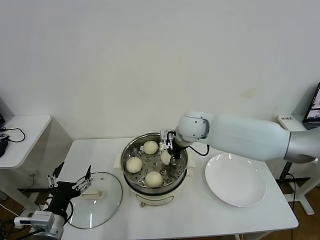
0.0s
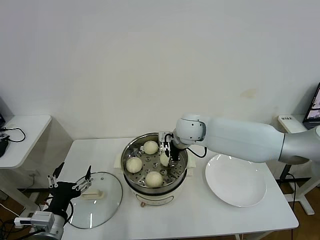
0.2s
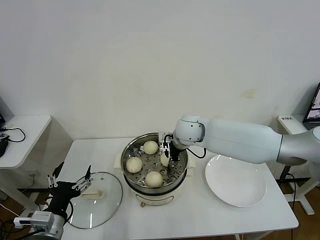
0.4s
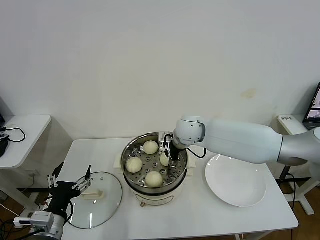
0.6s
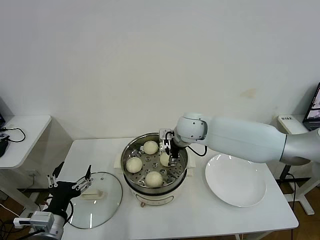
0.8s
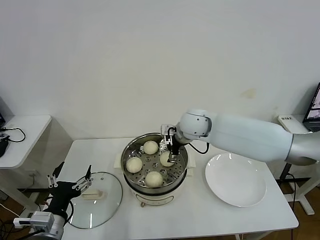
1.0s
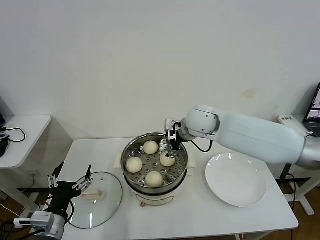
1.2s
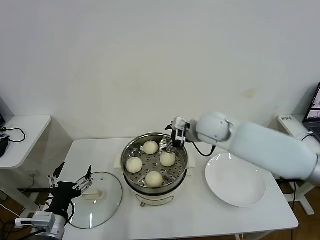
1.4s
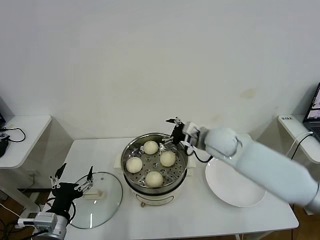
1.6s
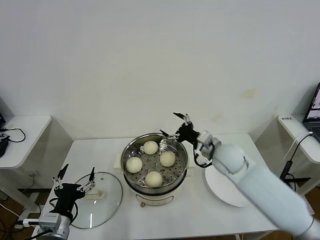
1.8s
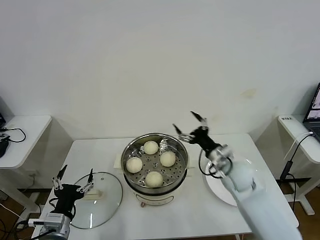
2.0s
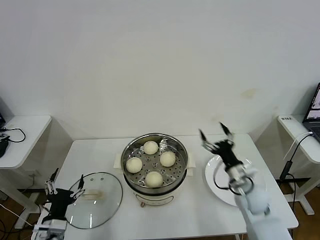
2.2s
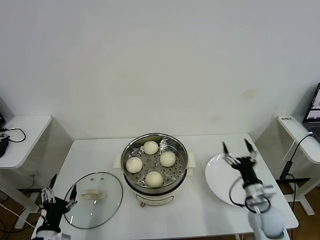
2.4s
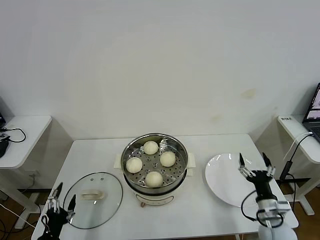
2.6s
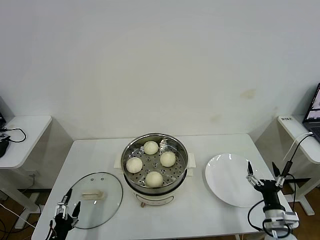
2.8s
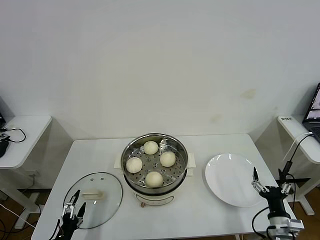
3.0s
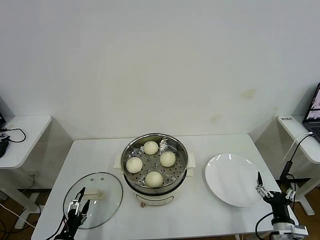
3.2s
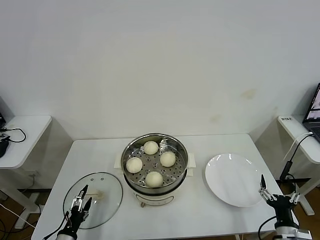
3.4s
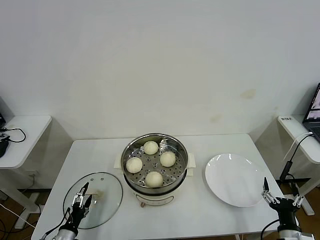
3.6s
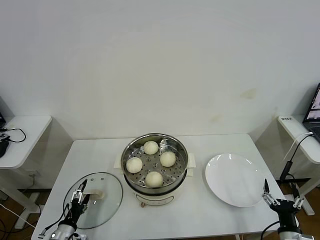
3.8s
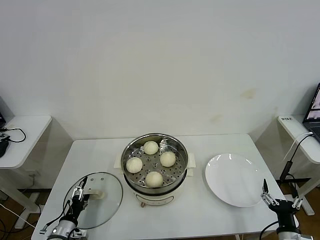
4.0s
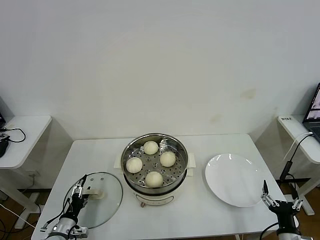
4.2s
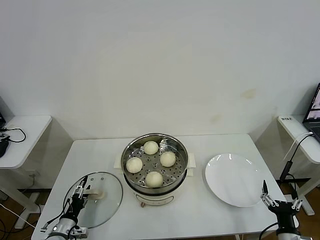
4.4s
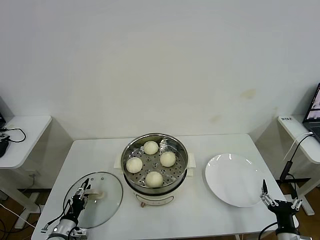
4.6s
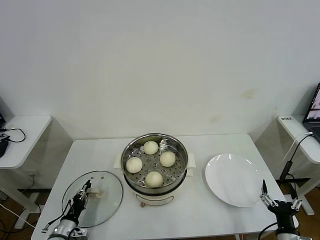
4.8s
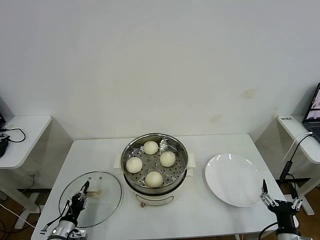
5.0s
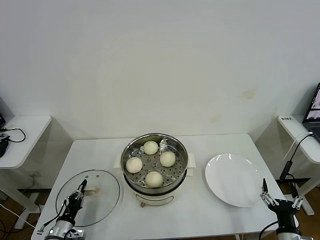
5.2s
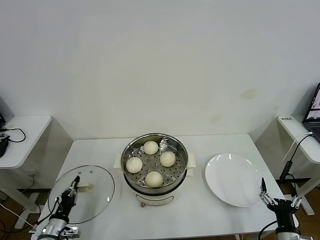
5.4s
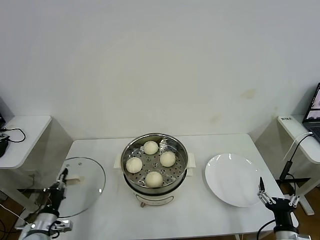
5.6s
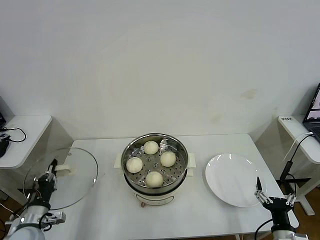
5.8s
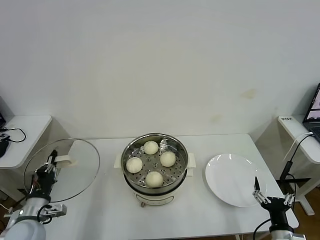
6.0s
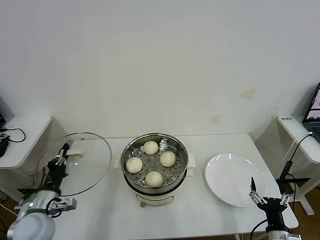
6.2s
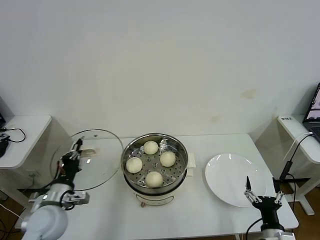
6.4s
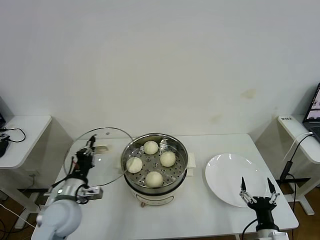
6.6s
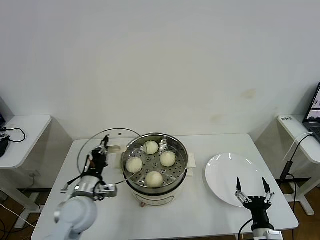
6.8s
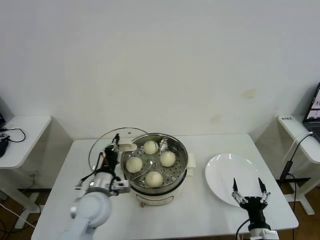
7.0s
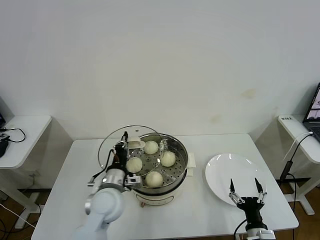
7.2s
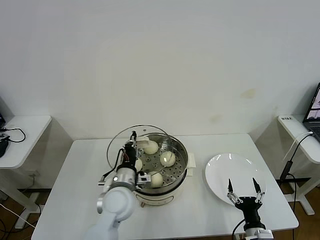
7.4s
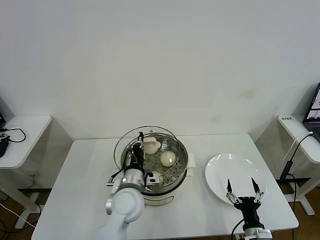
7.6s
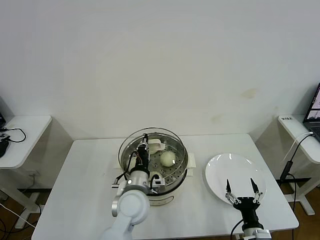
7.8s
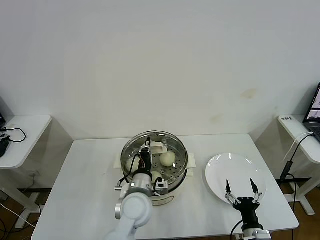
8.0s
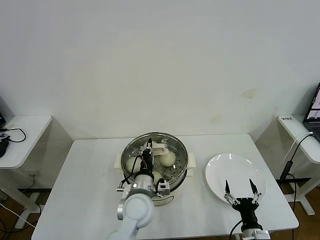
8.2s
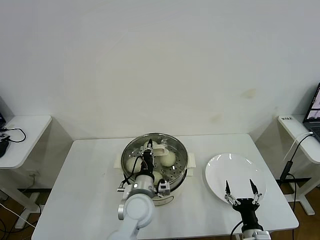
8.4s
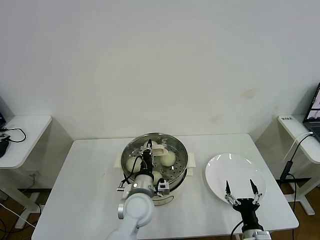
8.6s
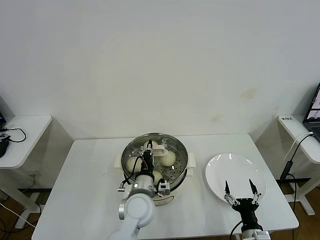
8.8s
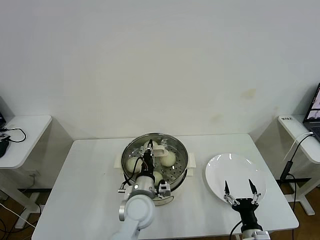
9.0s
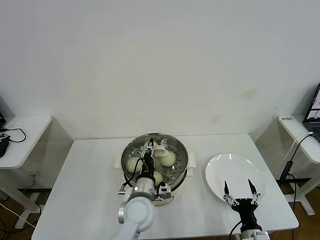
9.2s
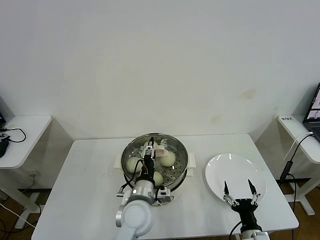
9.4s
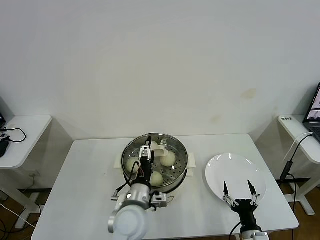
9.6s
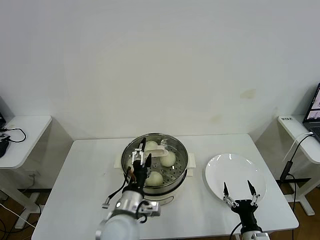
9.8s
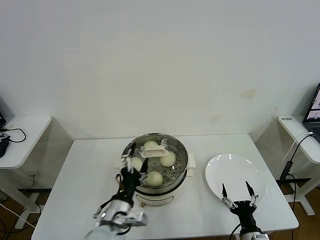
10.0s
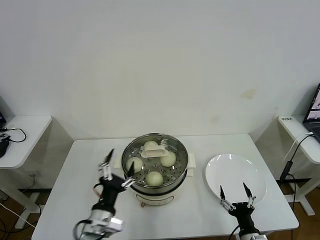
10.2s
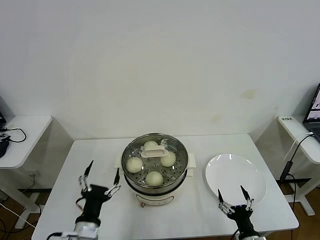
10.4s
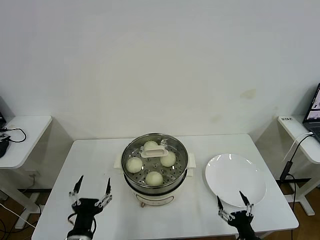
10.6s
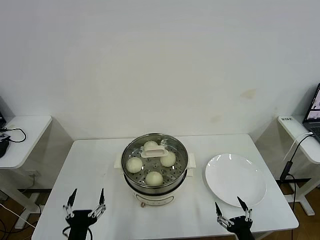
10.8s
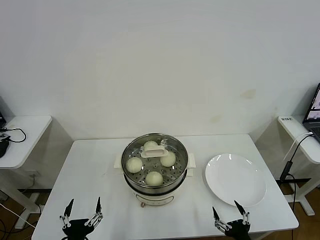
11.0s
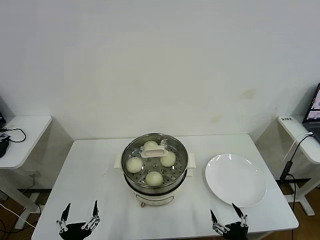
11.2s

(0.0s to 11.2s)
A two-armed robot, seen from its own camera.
Task of the whole recording: take steamed baozi put them in steamer then cover it.
Step, 0.8s - 5.0s: Grasp the pot lid with left gripper.
Step, 5.2s - 9.4s: Place the pot lid on the steamer with left gripper.
0.0s - 1.6s: The right gripper heads to the right, covering approximately 5 cm, and opens.
1.6s - 3.2s: The right gripper goes roughly 40 cm backward, downward and to the right. The left gripper is displaced downward by roughly 15 cm.
3.2s - 4.8s: The left gripper goes some 10 cm forward, and closes its fingers.
4.8s - 6.4s: The left gripper shifts approximately 20 cm upward.
6.4s - 8.0s: The right gripper shifts by approximately 5 cm, while the left gripper travels to the right by some 25 cm.
8.0s - 9.6s: The left gripper opens up.
9.6s - 11.2s: The left gripper heads backward and to the left, covering approximately 25 cm; the right gripper shifts about 5 cm backward.
